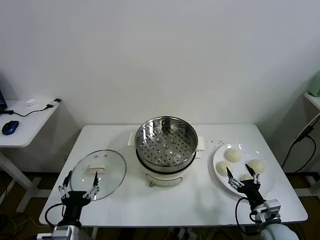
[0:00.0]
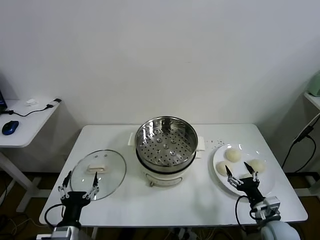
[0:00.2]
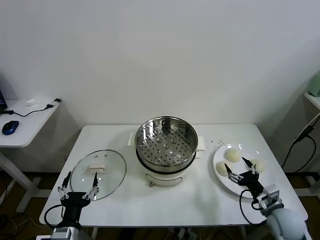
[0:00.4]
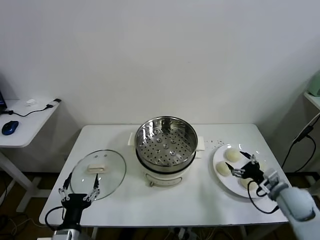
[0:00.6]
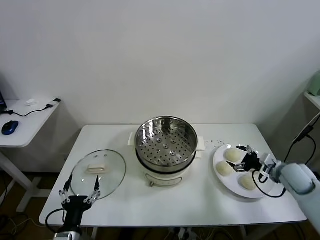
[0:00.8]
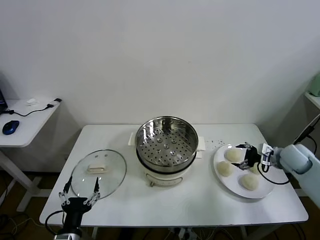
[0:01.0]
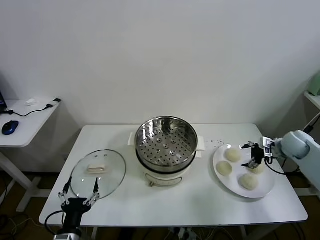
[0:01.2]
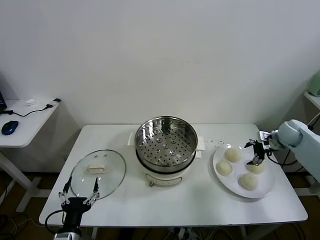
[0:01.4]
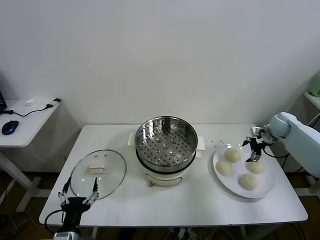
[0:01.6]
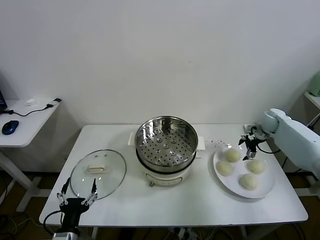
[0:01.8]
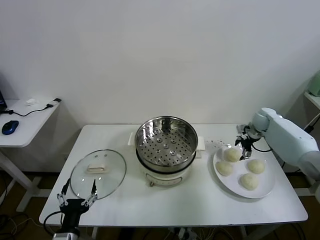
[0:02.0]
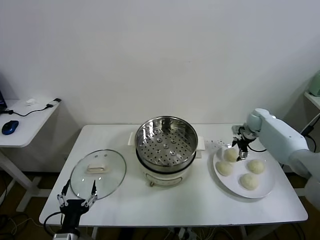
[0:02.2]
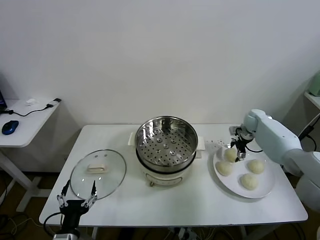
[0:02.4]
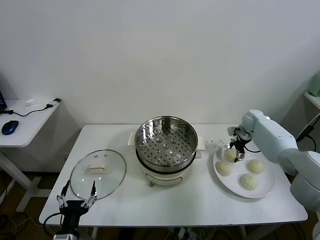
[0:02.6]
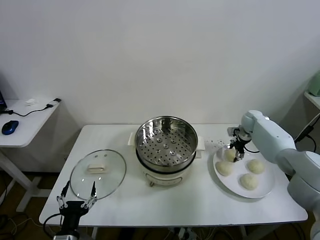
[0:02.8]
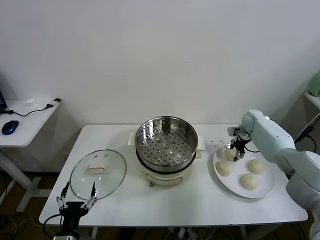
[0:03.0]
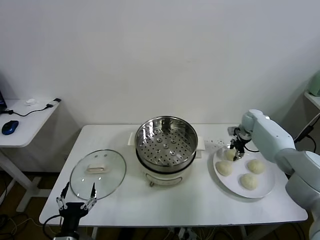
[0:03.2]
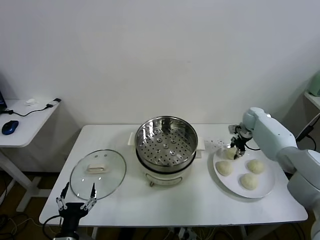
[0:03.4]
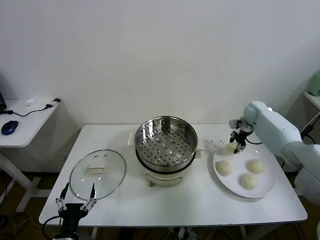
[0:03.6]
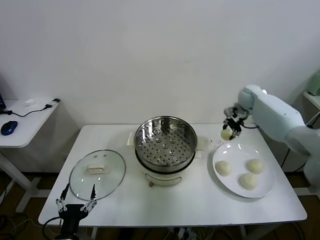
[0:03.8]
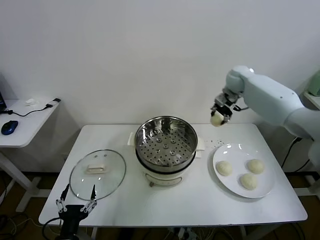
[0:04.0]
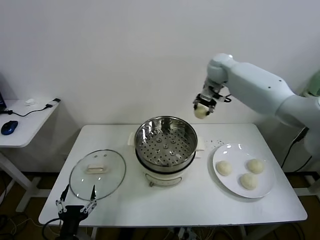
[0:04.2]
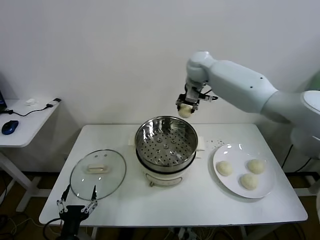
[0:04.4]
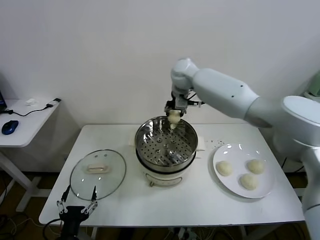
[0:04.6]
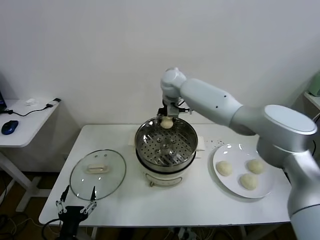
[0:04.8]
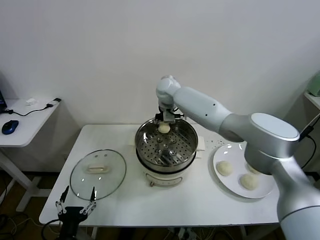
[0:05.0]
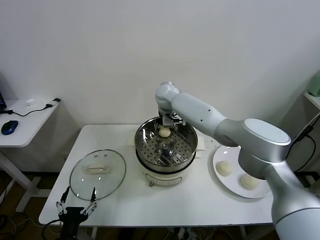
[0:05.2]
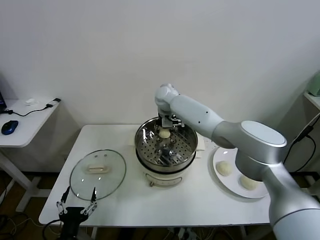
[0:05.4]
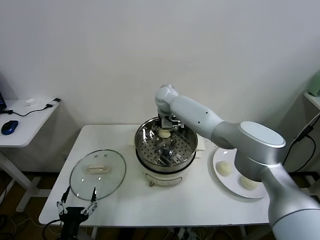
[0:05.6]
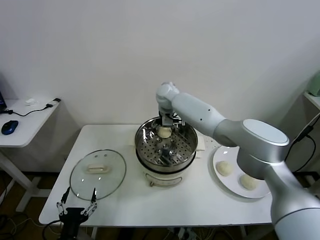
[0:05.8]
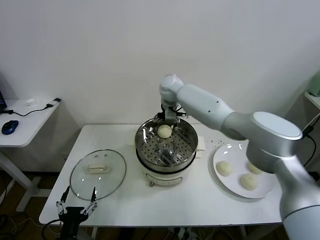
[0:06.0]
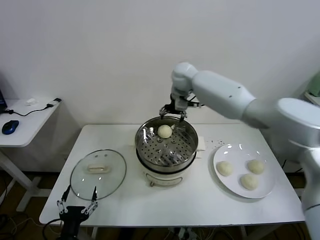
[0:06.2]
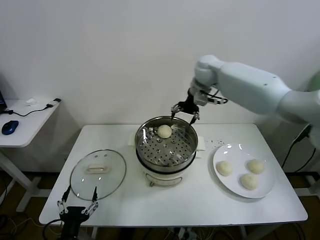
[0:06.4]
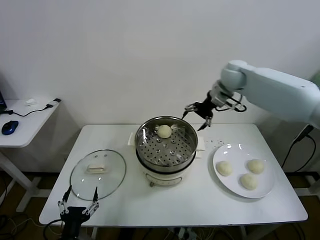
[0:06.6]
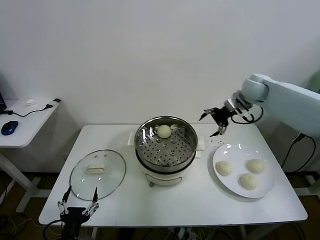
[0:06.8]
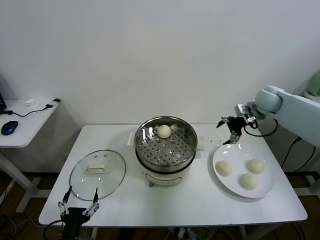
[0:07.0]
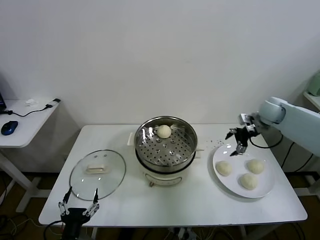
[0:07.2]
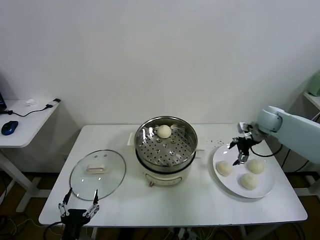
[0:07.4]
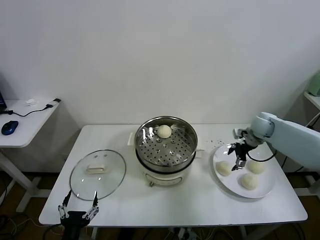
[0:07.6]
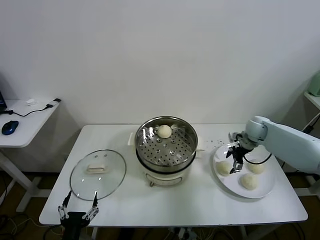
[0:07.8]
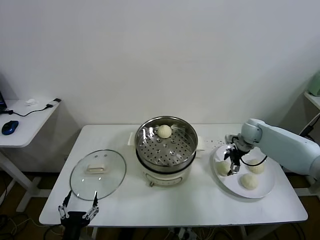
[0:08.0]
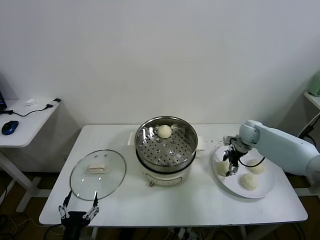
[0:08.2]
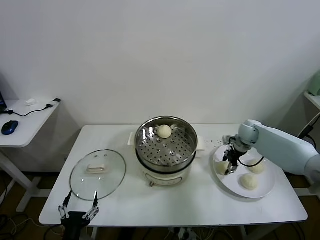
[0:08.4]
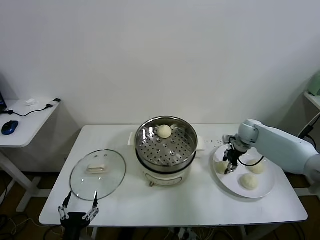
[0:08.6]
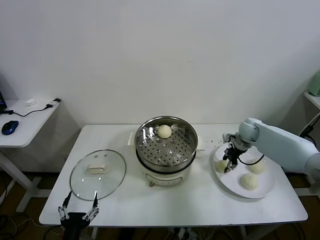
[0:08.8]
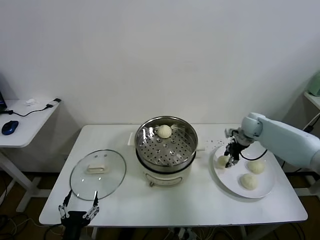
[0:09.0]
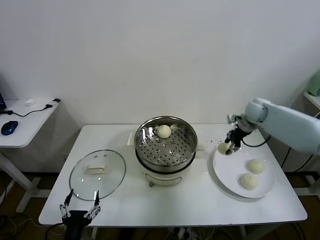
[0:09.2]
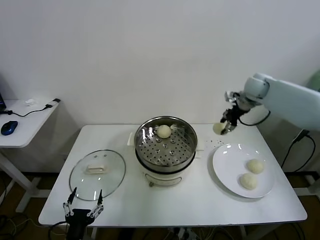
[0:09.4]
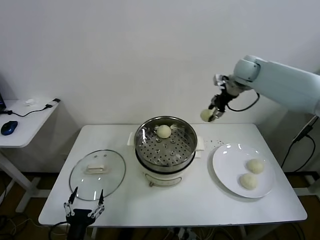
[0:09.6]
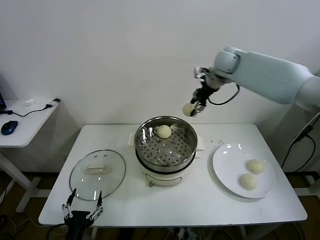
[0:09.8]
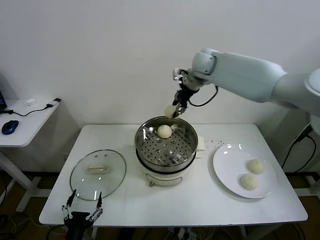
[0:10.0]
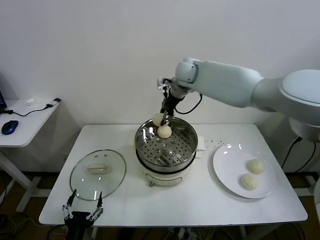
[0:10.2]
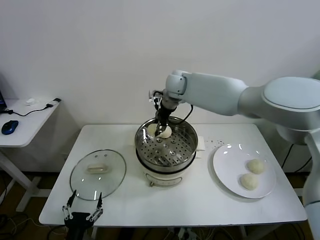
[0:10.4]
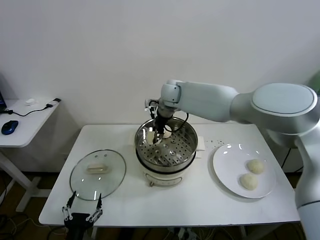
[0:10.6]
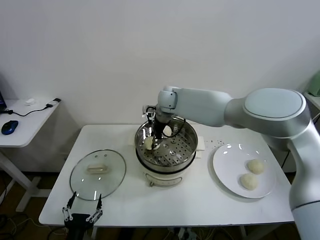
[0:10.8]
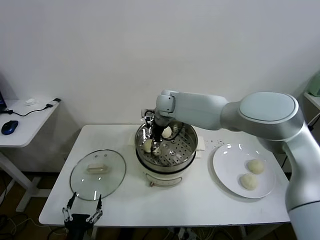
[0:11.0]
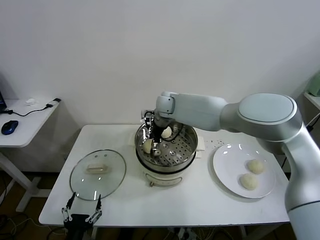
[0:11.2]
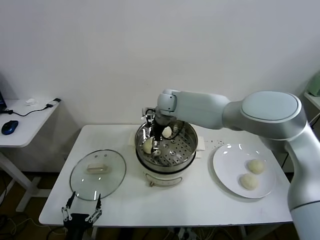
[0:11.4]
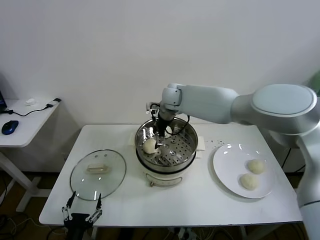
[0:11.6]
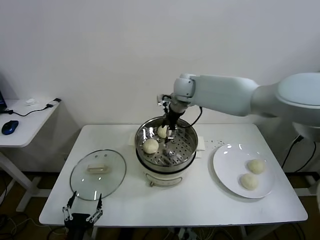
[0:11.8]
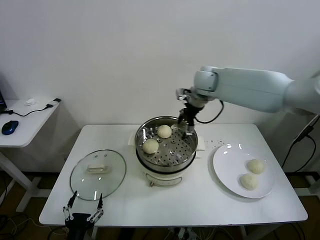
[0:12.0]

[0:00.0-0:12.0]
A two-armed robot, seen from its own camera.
Task of the whole recording: take steamed baozi put them in steamer.
Step, 0:00.0 to 0:02.8: Grasp the baozi in the plate with right gripper.
Step, 0:03.0 to 0:05.8: Place the baozi on the steamer with right gripper.
Step, 0:06.0 to 0:08.6: Grasp the baozi in the plate with right gripper.
Step, 0:08.8 to 0:11.4: Place the baozi on the steamer with right gripper.
0:01.6 to 0:03.0: The right gripper moves to the left and forward, about 10 cm, and closes.
0:03.0 to 0:04.4: The right gripper is displaced to the left and upward by roughly 40 cm.
0:04.4 to 0:06.0: The right gripper travels downward and to the left by some 10 cm, and opens its fingers.
0:06.0 to 0:07.6: The right gripper travels to the right and downward by some 35 cm.
0:07.6 to 0:09.0: The right gripper closes its fingers.
0:09.0 to 0:10.4: The right gripper heads to the left and upward, covering approximately 35 cm.
0:10.4 to 0:12.0: The right gripper heads to the right, covering about 10 cm, and opens up.

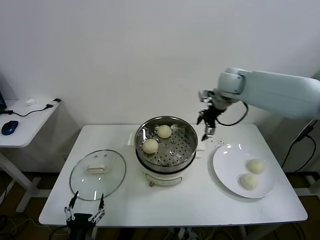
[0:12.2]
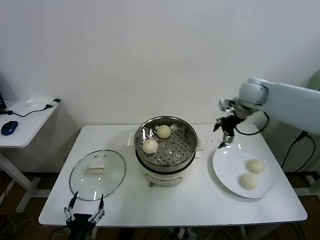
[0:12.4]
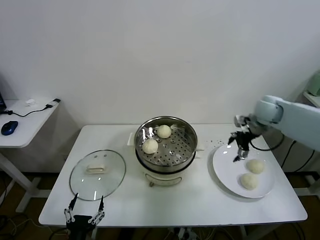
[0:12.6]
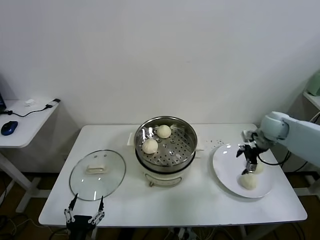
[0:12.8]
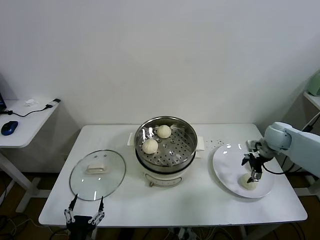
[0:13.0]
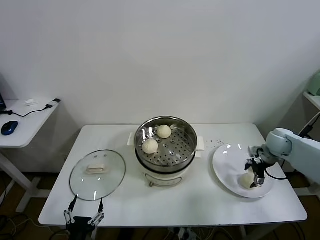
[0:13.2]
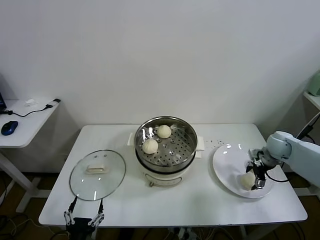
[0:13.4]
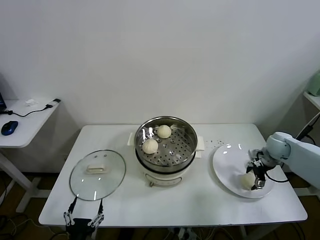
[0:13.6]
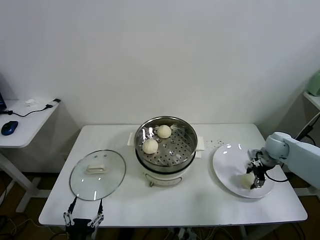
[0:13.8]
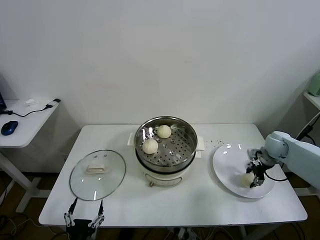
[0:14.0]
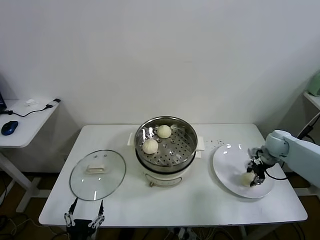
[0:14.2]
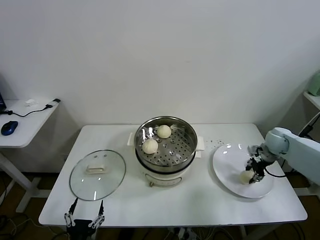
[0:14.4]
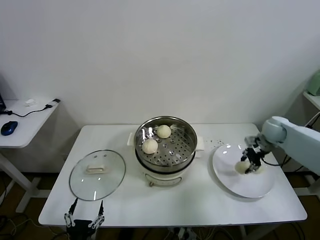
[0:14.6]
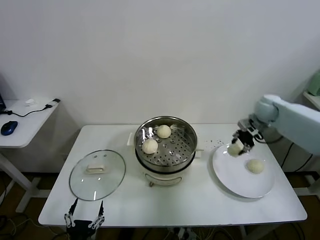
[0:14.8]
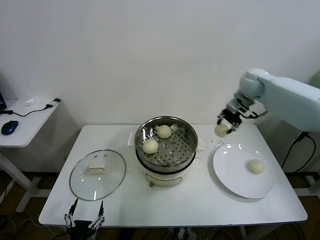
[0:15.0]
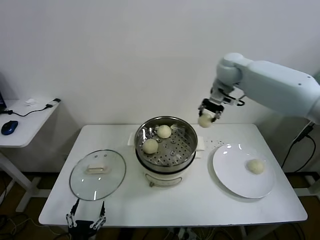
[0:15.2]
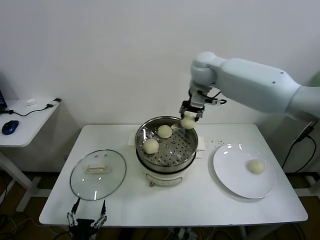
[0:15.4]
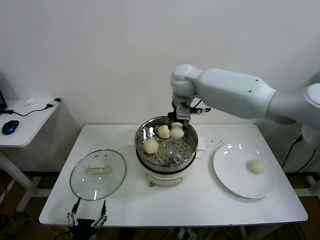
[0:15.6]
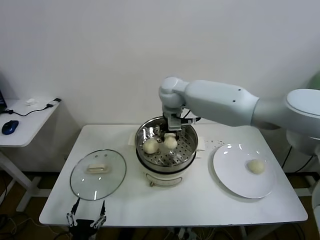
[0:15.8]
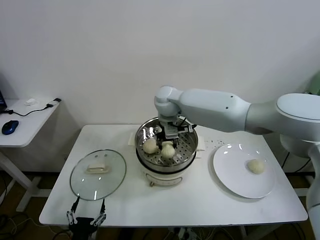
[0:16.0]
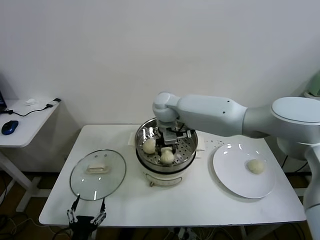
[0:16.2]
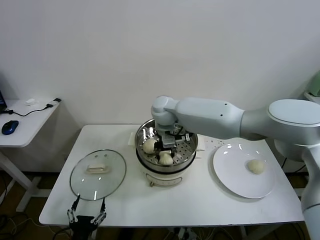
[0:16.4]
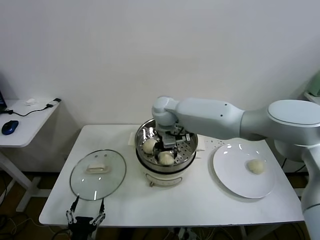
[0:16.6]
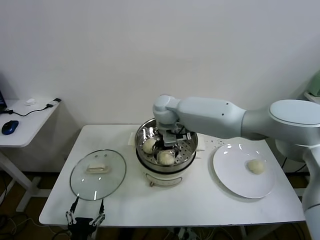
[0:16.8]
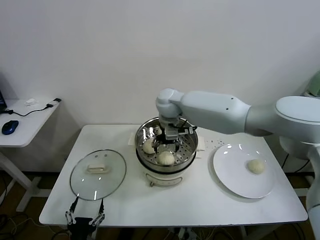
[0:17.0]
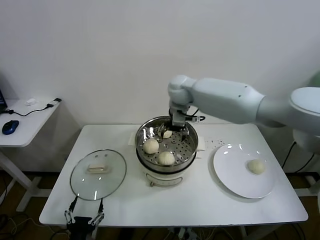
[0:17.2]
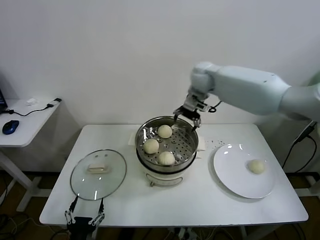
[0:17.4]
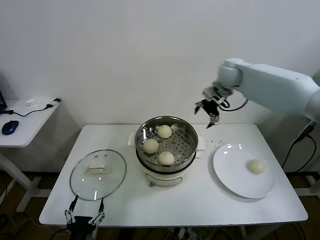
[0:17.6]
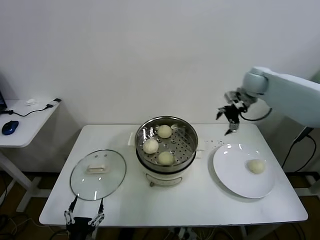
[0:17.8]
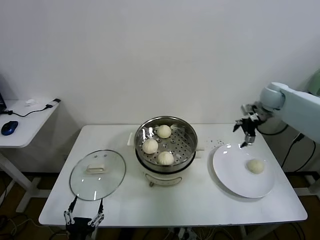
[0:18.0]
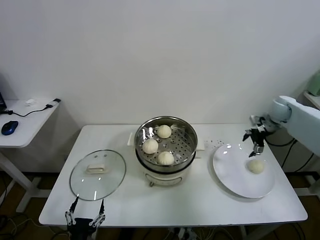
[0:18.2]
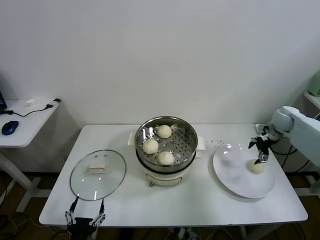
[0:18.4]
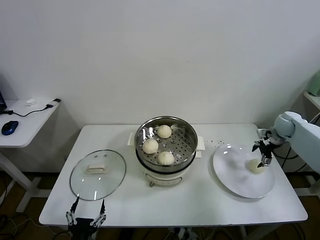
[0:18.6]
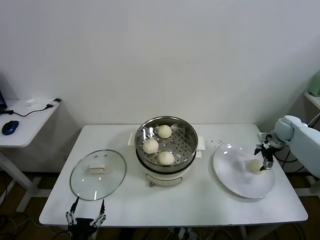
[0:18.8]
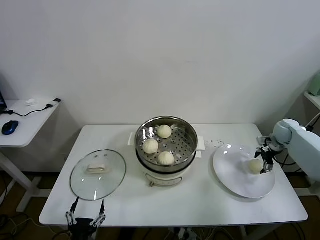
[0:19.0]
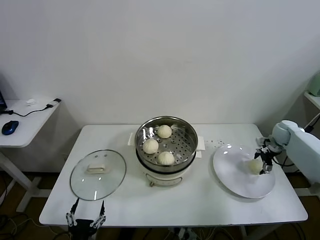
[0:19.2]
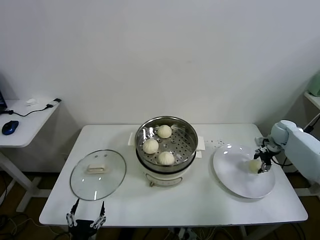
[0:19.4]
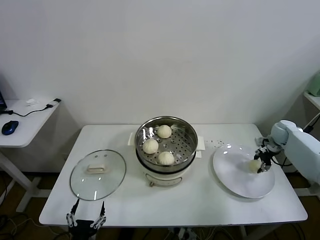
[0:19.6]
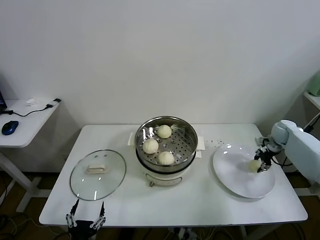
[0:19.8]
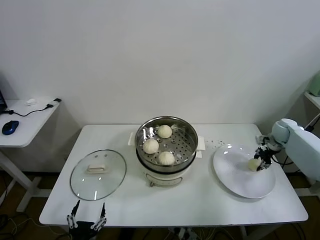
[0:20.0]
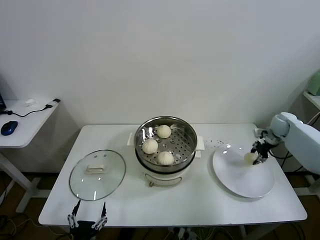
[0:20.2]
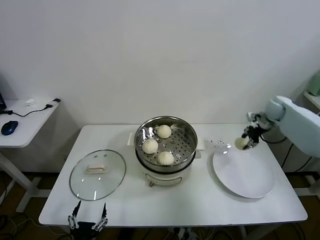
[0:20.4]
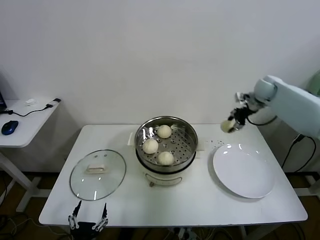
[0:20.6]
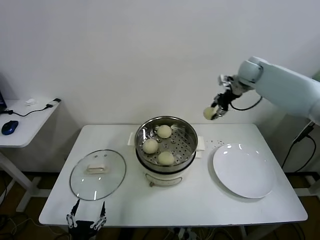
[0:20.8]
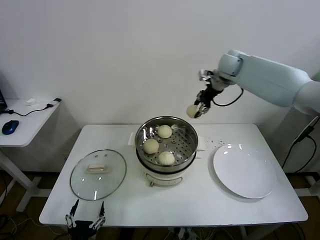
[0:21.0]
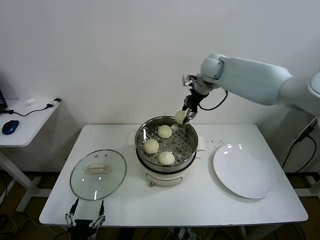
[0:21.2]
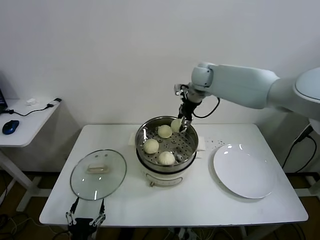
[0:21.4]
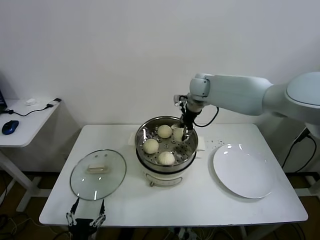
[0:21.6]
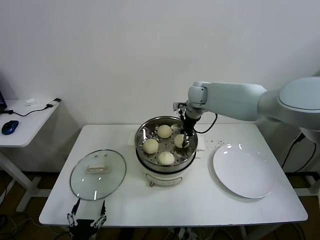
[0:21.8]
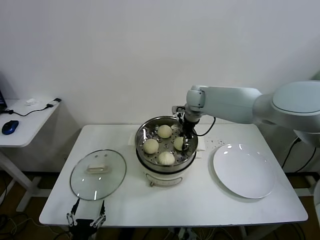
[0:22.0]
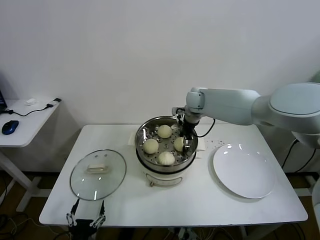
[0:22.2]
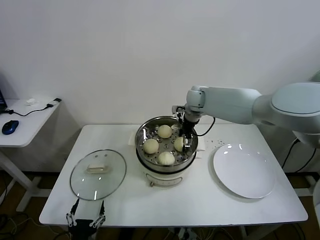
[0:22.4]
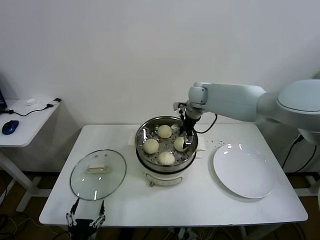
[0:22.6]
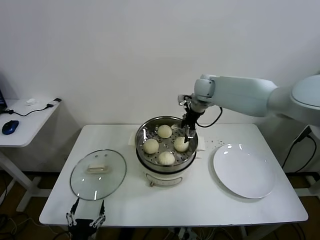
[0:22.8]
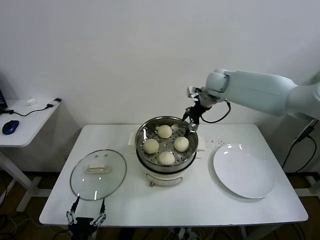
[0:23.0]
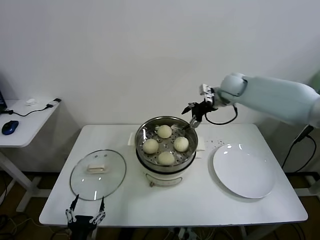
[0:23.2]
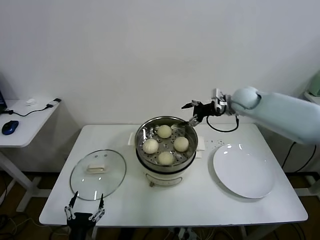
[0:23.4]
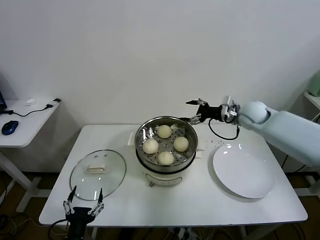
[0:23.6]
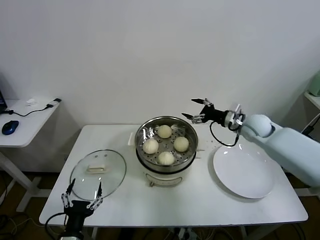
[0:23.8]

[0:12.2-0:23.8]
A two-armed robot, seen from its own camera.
Task of the whole recording: take steamed baozi put them in steamer.
Step, 0:12.2 to 0:14.0: Grasp the baozi in the plate with right gripper.
Step, 0:14.2 to 0:16.6: Place the baozi on the steamer with right gripper.
Step, 0:16.8 to 0:19.8: Grasp the baozi in the plate with right gripper.
Step, 0:20.0 to 0:22.4: Place the baozi on the steamer with right gripper.
0:12.2 to 0:13.6: The right gripper moves downward, to the right and backward, approximately 30 cm.
0:13.6 to 0:15.0: The right gripper moves upward, to the left and forward, some 30 cm, and closes.
0:15.0 to 0:16.6: The right gripper is displaced to the left by some 30 cm, and opens.
0:16.6 to 0:18.0: The right gripper goes roughly 40 cm to the right.
0:18.0 to 0:19.4: The right gripper goes about 20 cm downward and to the right, and closes up.
0:19.4 to 0:21.0: The right gripper moves to the left and upward, approximately 35 cm, and closes.
0:21.0 to 0:22.4: The right gripper is displaced downward and to the left by roughly 15 cm, and opens.
0:22.4 to 0:23.8: The right gripper heads to the right and backward, covering about 20 cm. Meanwhile the left gripper ends up some 5 cm from where it was.
